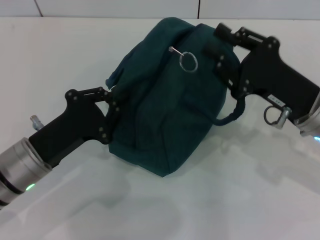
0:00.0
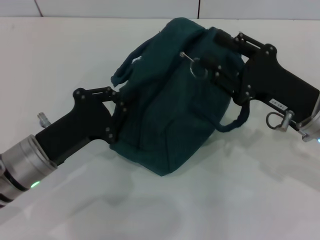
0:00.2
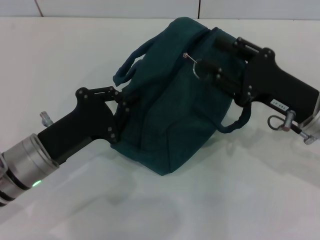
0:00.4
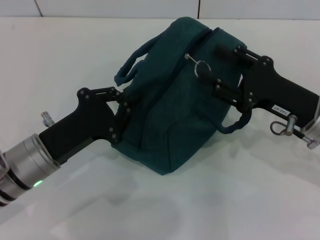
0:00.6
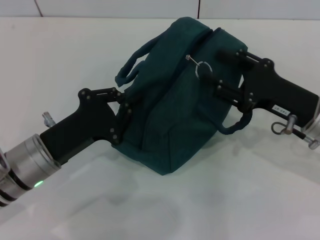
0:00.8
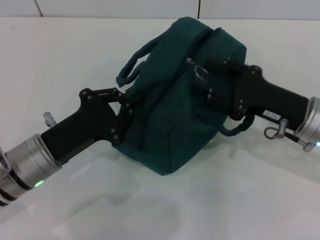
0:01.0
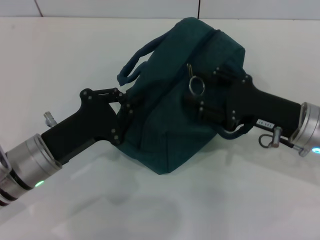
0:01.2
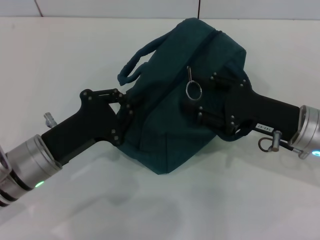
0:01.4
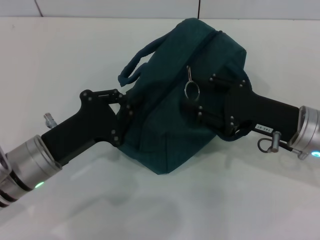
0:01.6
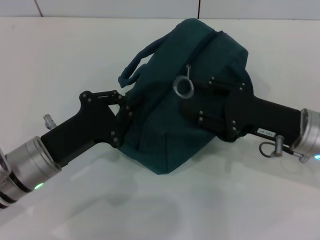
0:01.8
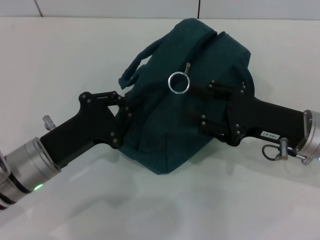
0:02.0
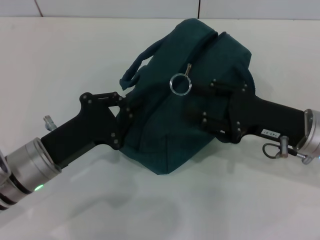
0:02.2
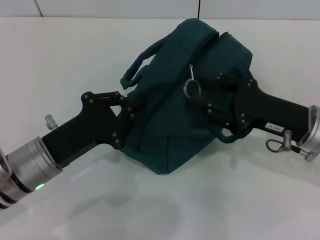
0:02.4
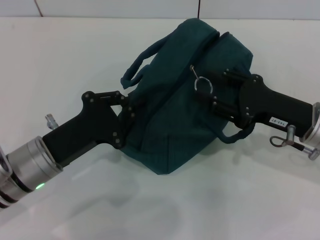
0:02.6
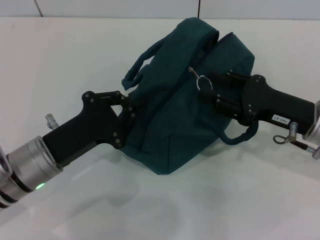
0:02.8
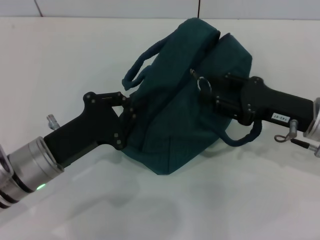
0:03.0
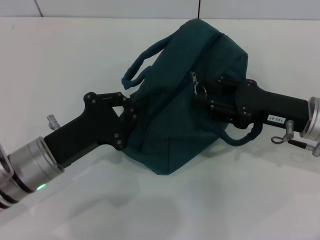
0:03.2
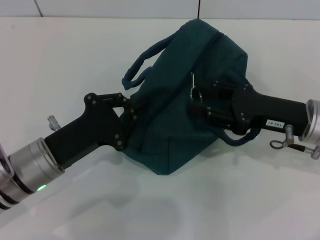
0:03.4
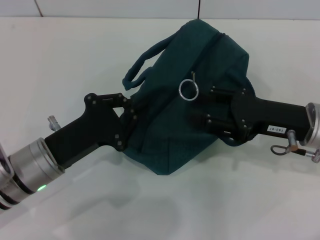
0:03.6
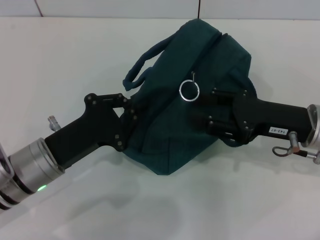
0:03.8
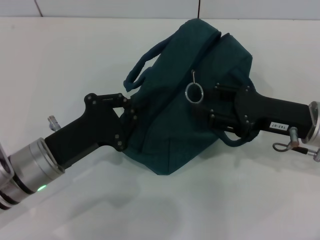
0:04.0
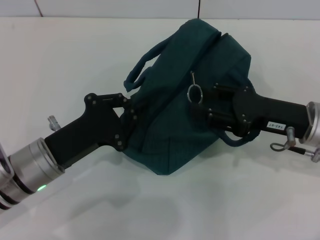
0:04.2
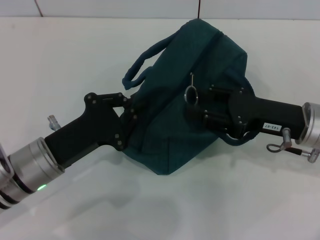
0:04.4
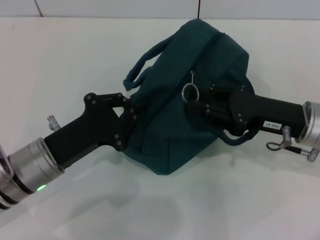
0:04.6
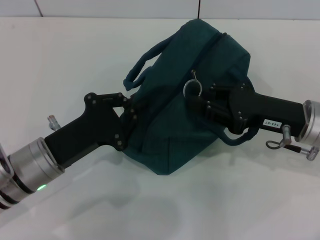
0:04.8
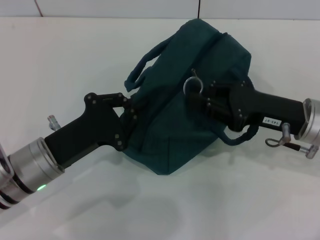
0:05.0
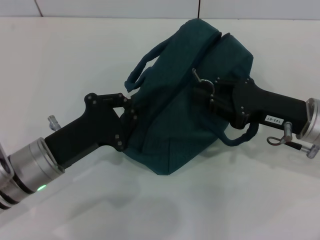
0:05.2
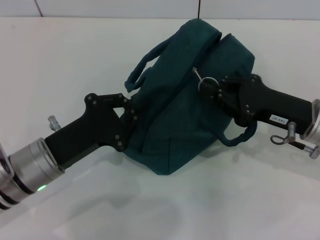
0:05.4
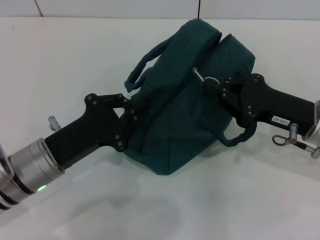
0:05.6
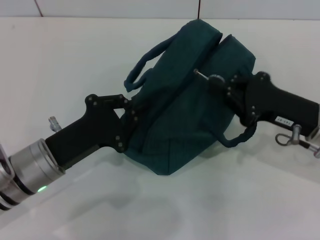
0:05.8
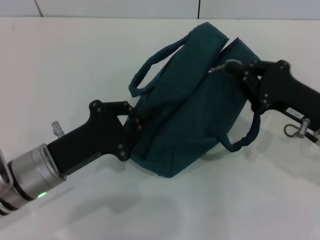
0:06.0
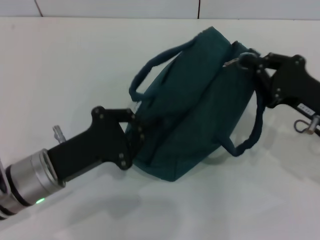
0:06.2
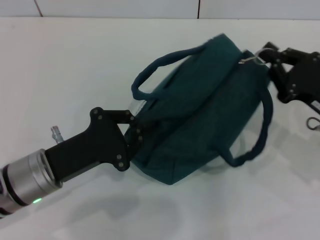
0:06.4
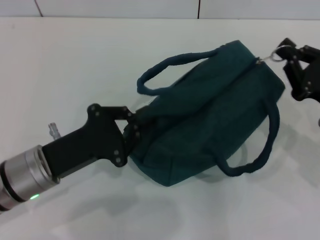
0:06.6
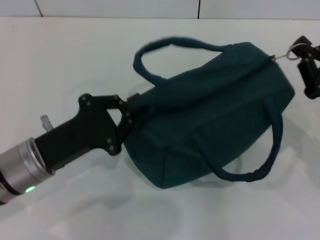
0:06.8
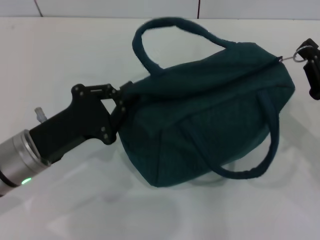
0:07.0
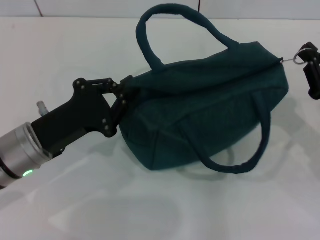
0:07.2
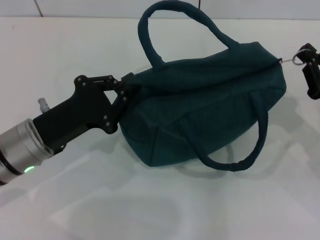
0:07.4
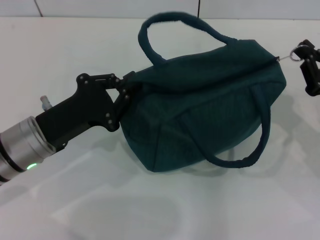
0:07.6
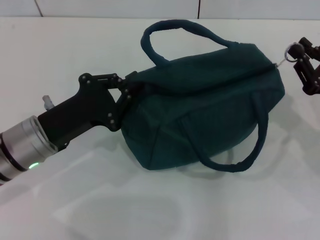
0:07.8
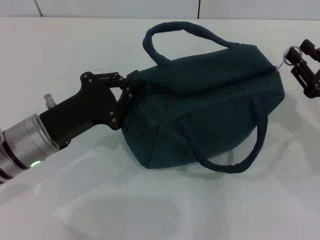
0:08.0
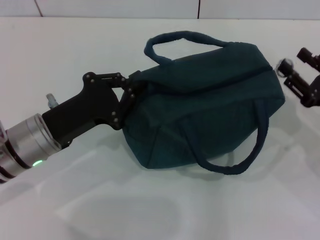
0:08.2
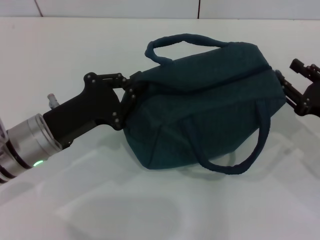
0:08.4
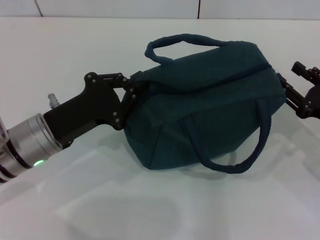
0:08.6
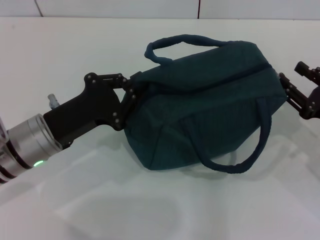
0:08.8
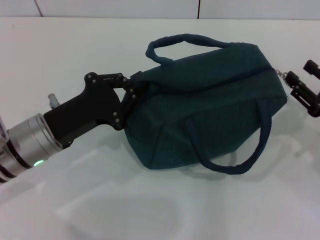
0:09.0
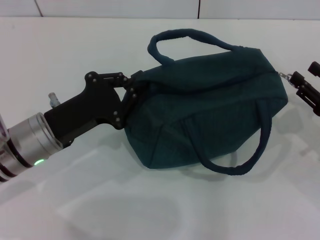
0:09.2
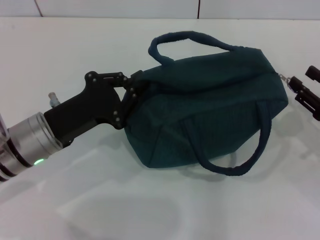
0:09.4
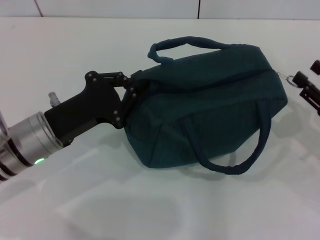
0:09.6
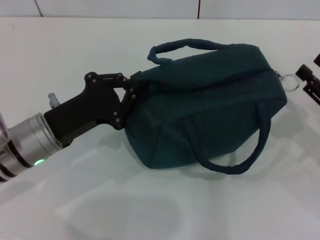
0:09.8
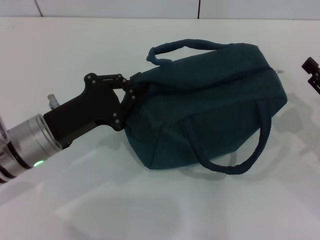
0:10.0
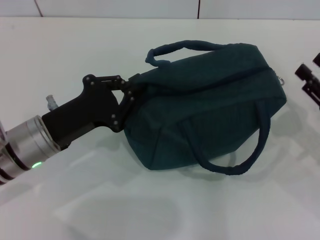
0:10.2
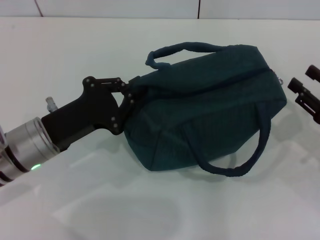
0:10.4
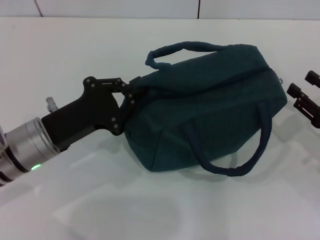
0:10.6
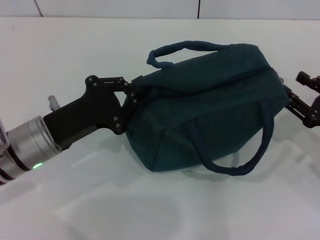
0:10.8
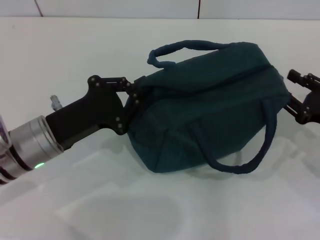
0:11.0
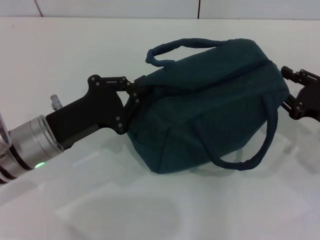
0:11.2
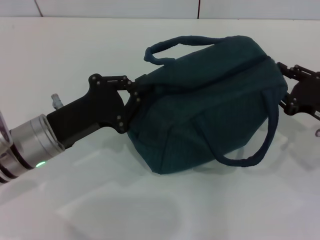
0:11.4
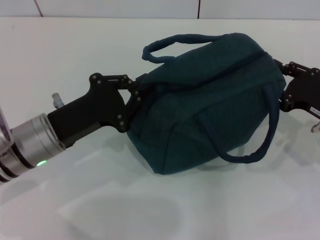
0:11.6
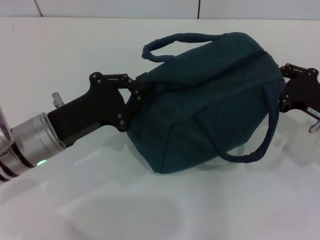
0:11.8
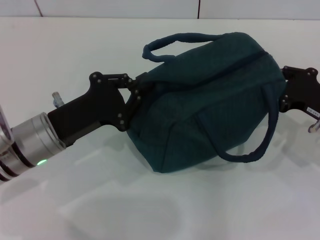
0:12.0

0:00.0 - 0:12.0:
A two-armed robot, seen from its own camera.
0:00.0 - 0:01.6: The right gripper opens its fingers.
0:01.6 - 0:04.4: There are only small adjustments of the grippers.
0:04.4 - 0:06.0: The right gripper closes its fingers.
0:06.0 - 0:07.6: The right gripper heads to the right, covering about 5 cm.
0:07.6 - 0:09.0: The right gripper opens its fingers.
0:09.0 - 0:10.4: The grippers stay close to where they were, moving slightly.
0:10.4 - 0:12.0: The right gripper shifts by roughly 5 cm.

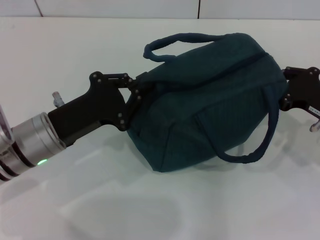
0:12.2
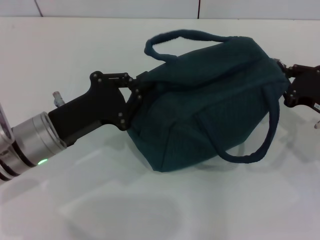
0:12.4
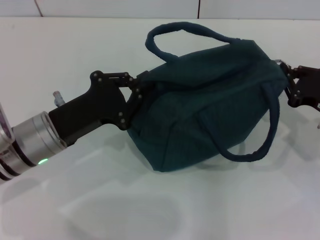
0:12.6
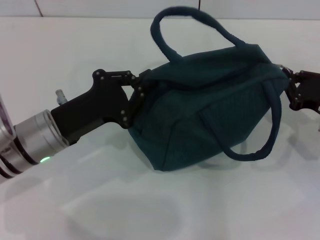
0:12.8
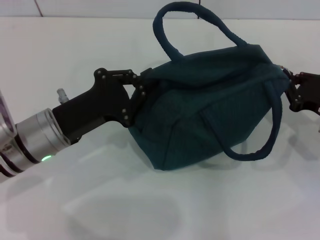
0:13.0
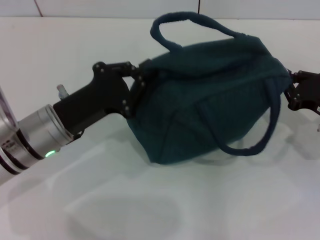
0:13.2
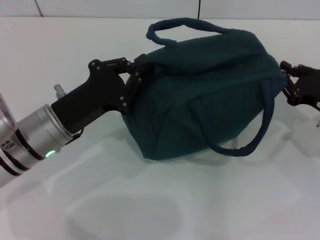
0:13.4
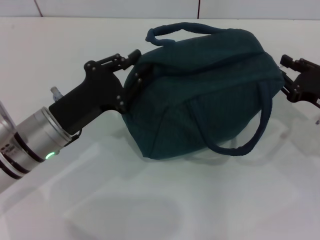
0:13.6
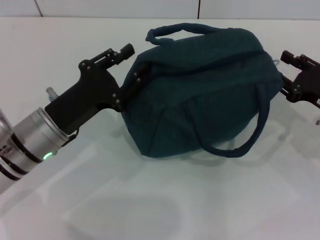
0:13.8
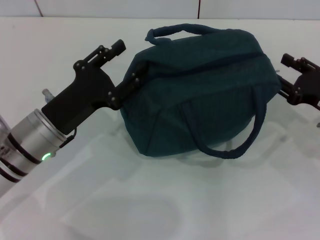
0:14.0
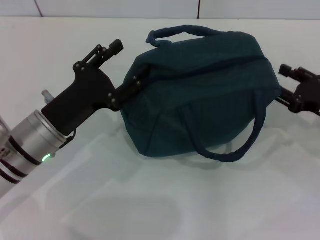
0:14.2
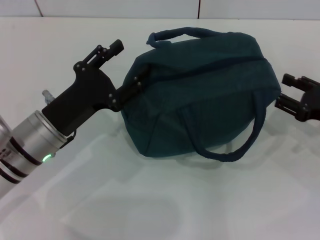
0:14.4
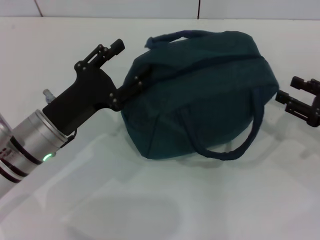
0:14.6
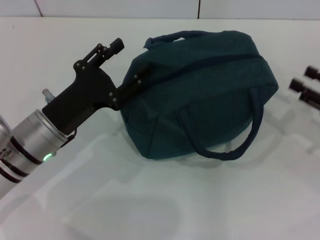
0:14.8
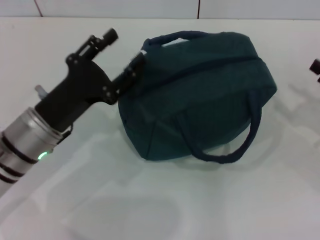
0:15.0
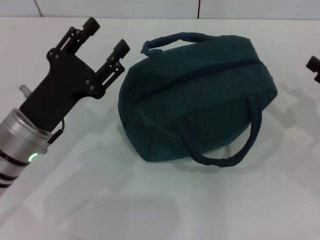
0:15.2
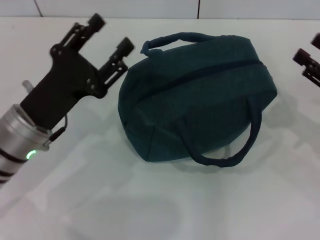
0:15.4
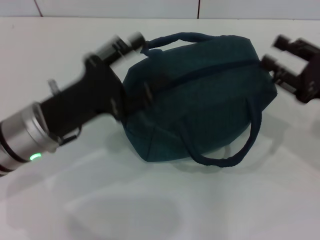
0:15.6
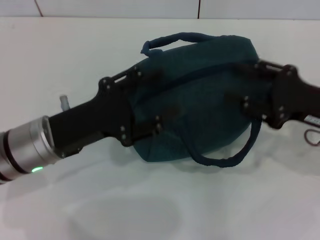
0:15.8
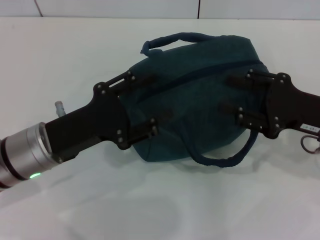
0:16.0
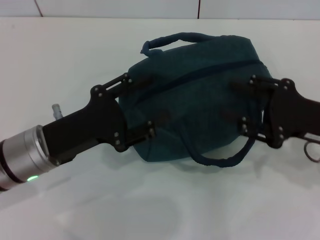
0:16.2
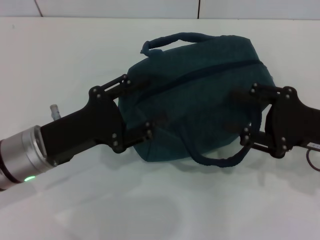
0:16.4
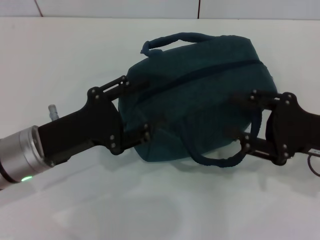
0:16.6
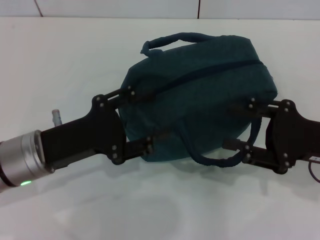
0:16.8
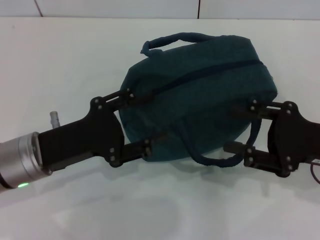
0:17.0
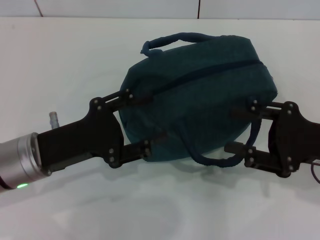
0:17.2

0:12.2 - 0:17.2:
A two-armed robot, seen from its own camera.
Step, 0:12.2 - 0:14.4: Hold the lunch bag with your left hand.
0:12.2 - 0:13.8: The grippers move only a little.
0:13.8 - 0:15.6: The right gripper moves approximately 5 cm. Meanwhile the left gripper opens up.
